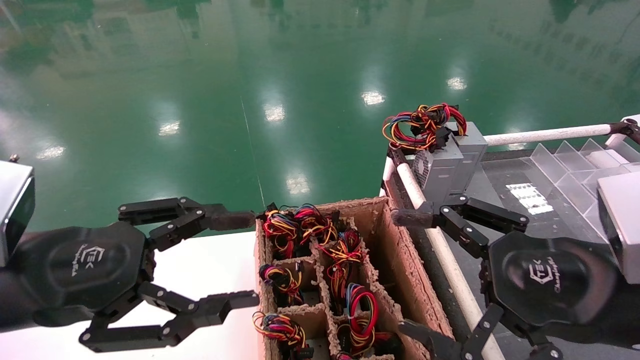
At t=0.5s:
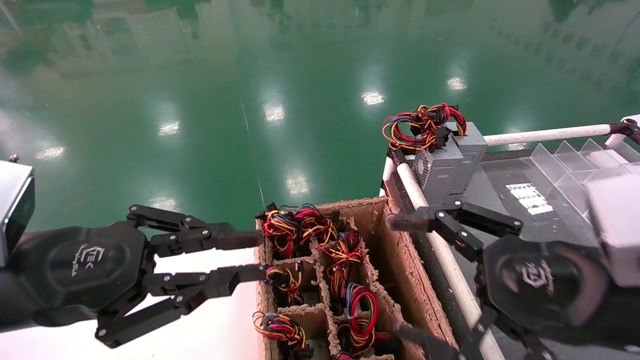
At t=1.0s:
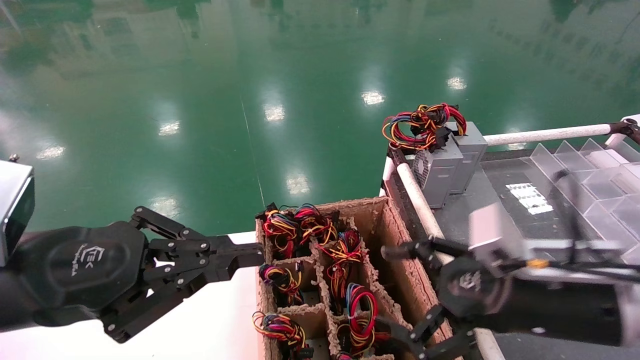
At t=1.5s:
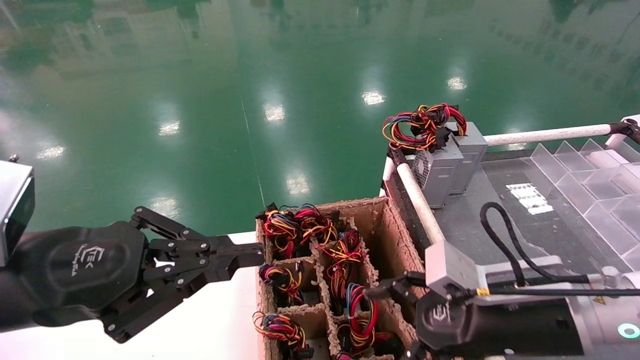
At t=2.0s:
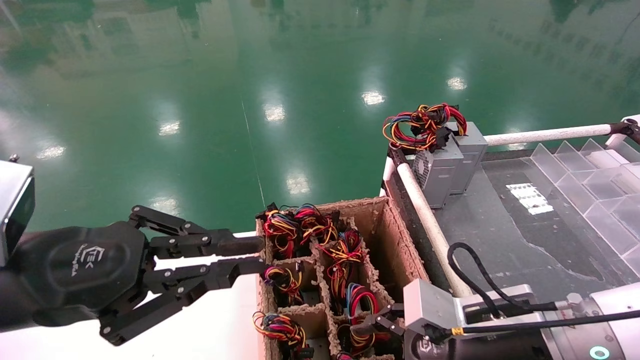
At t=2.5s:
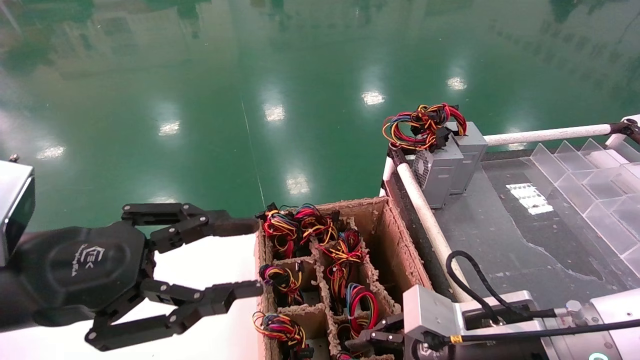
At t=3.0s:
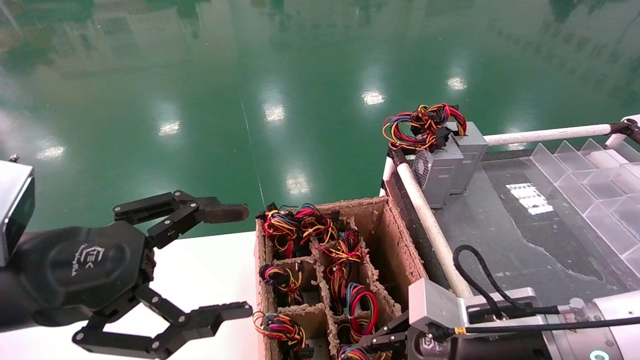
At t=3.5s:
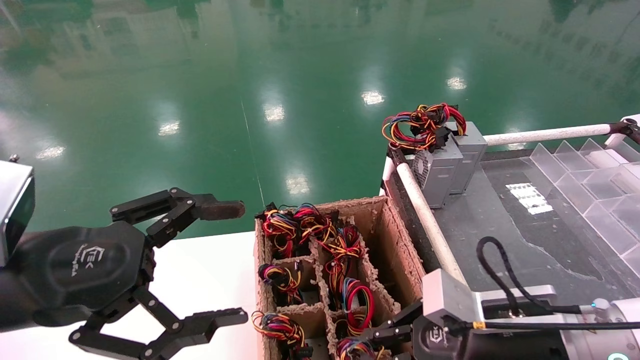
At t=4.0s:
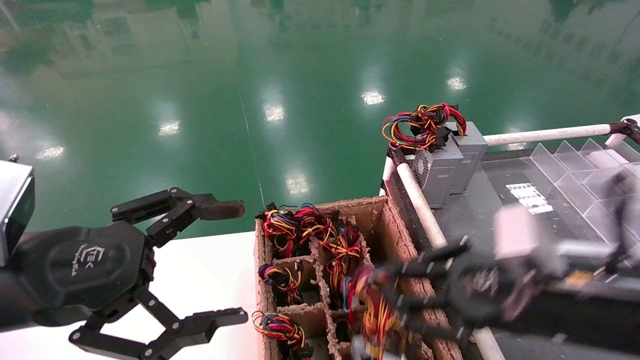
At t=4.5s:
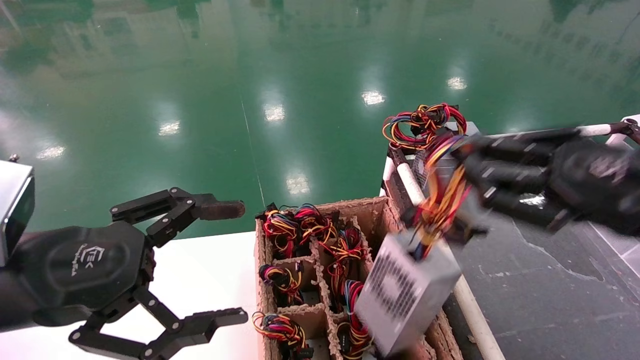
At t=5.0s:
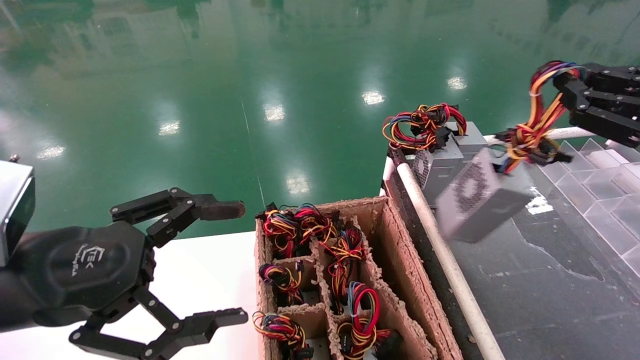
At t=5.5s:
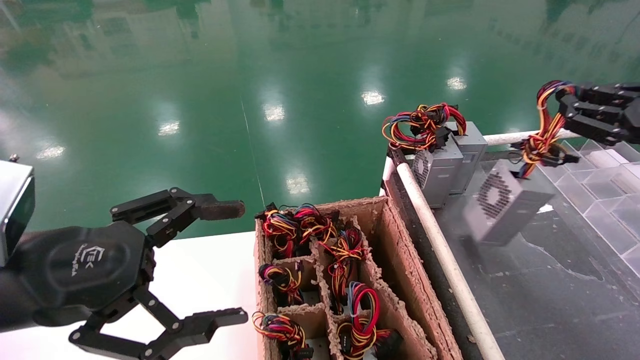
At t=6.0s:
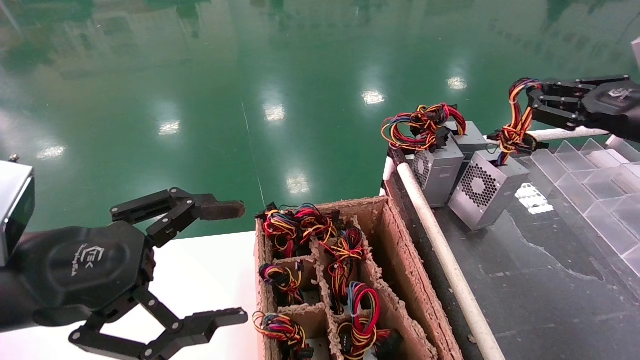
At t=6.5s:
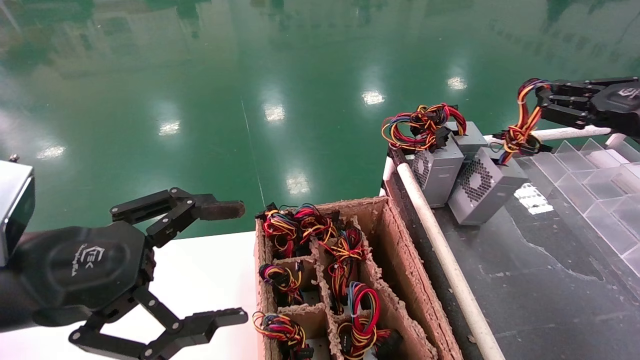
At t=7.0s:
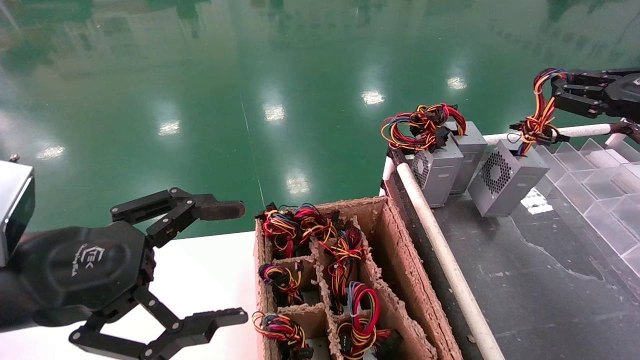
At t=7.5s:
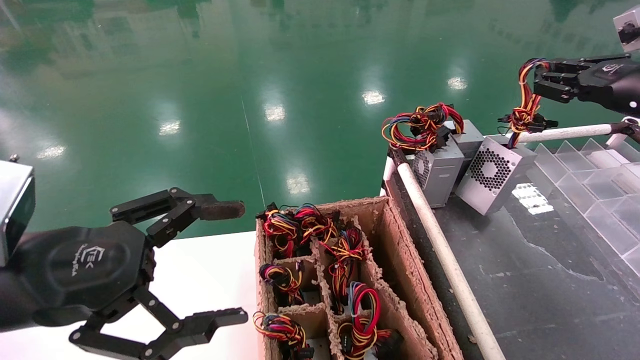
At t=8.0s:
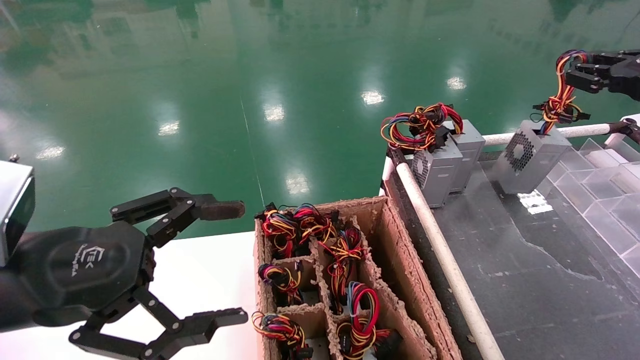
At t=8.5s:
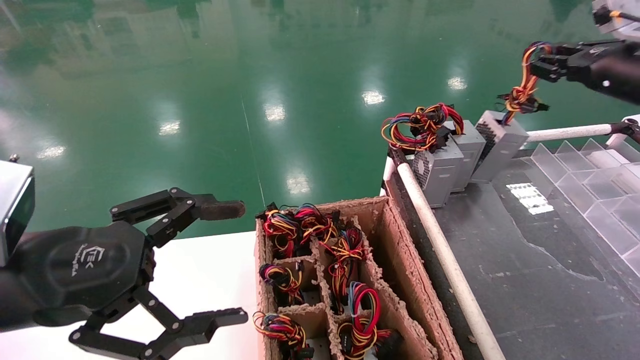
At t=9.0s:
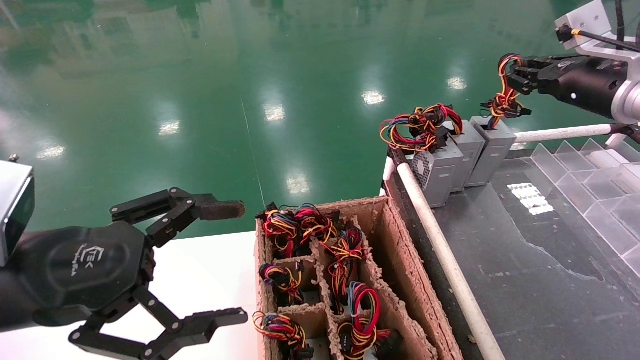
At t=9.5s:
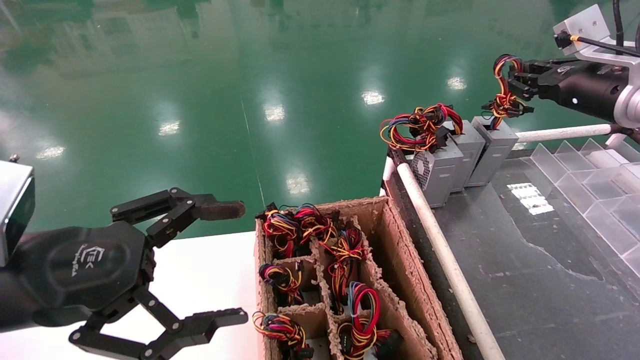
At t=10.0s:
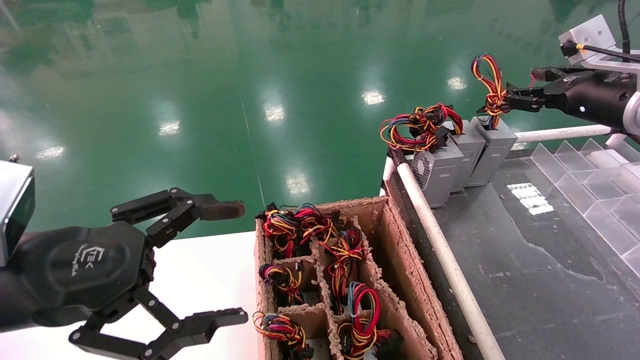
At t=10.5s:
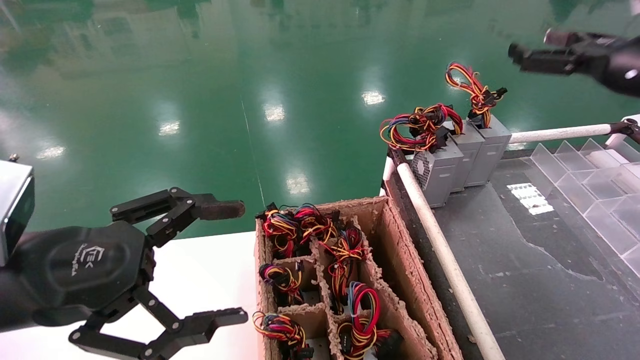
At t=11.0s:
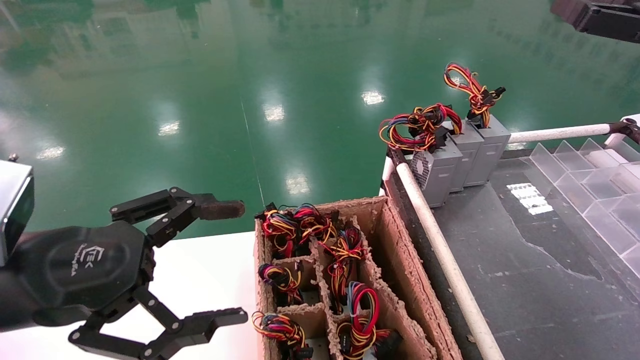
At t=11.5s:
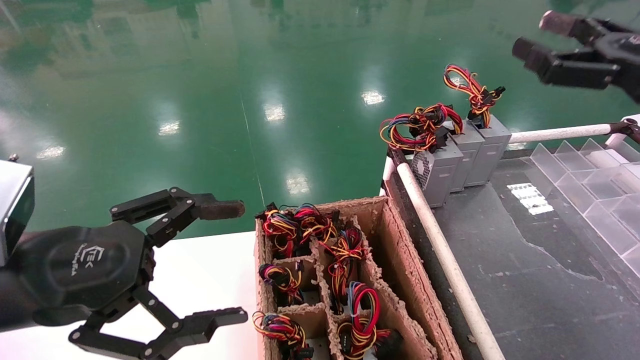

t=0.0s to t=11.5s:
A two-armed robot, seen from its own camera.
Step, t=1.0s to t=3.0s: Grab and lift the power supply from the large box.
Step, t=3.5s to t=9.5s: Place the power supply on the operating table.
t=0.0s to t=2.0s: The left gripper closes, while the right gripper moves downward, forward and to the left, some 15 cm.
t=2.0s to t=4.0s: The left gripper opens. Meanwhile the right gripper goes some 5 cm upward, and closes.
t=4.0s to t=6.0s: The right gripper is displaced to the right, upward and forward by roughly 25 cm.
t=6.0s to t=7.5s: The right gripper moves about 5 cm.
t=7.5s to t=9.5s: The right gripper goes some 5 cm forward.
t=9.5s to t=11.5s: The right gripper is displaced backward by roughly 15 cm, and opens up.
